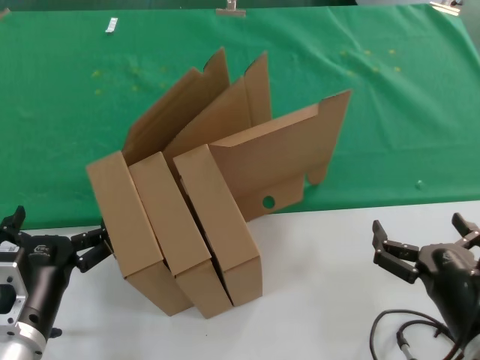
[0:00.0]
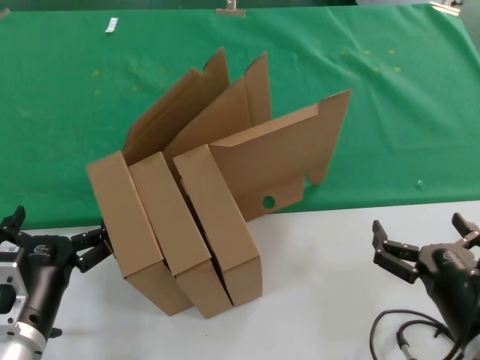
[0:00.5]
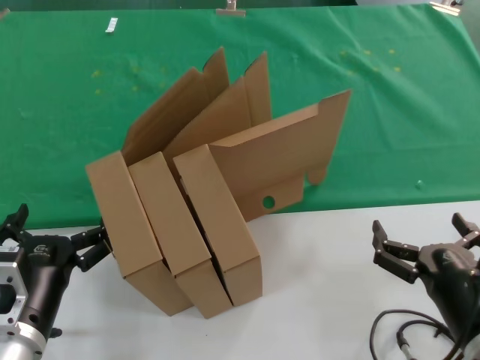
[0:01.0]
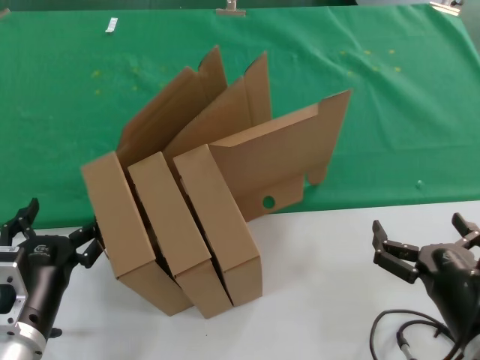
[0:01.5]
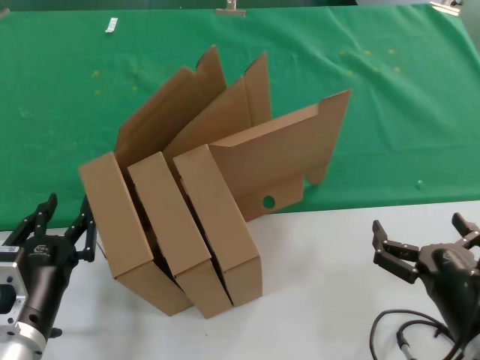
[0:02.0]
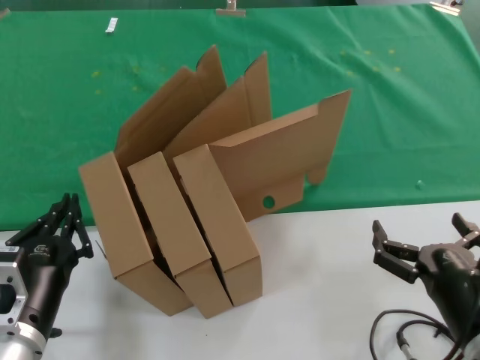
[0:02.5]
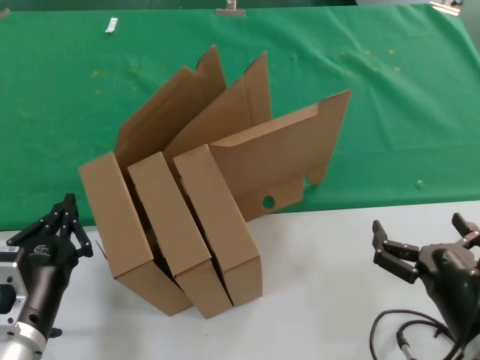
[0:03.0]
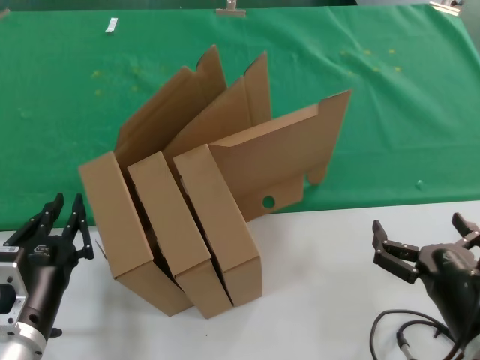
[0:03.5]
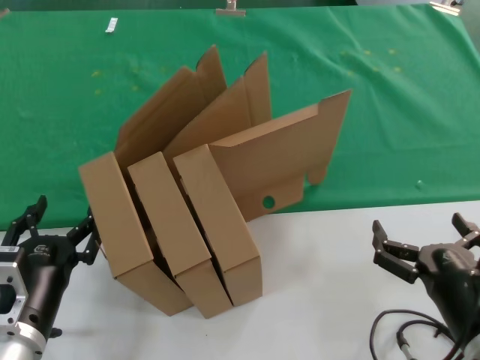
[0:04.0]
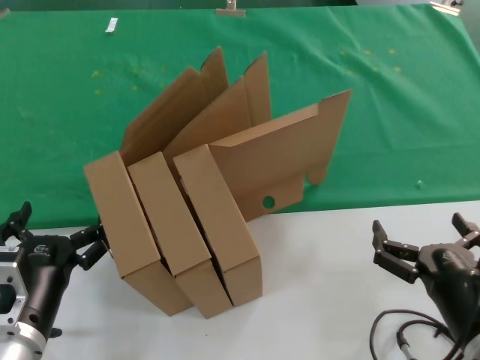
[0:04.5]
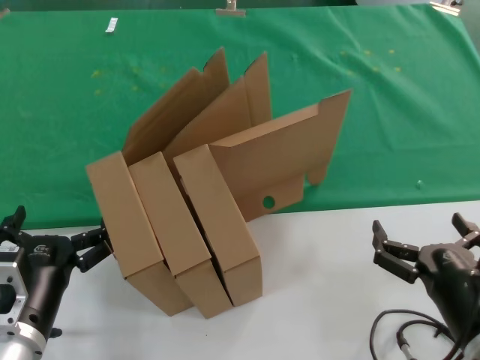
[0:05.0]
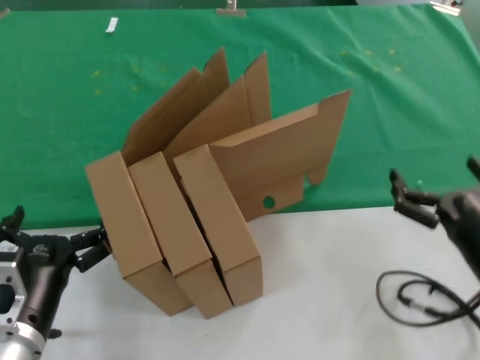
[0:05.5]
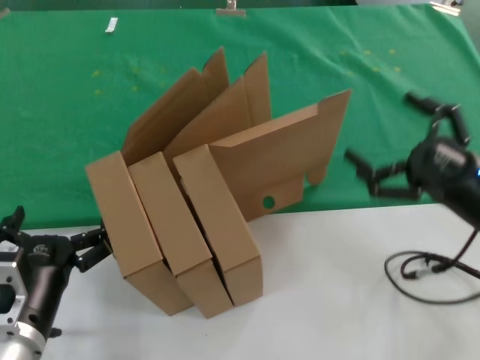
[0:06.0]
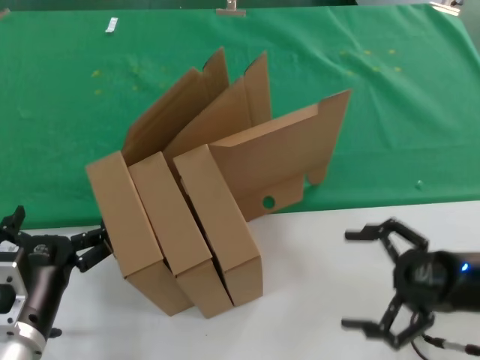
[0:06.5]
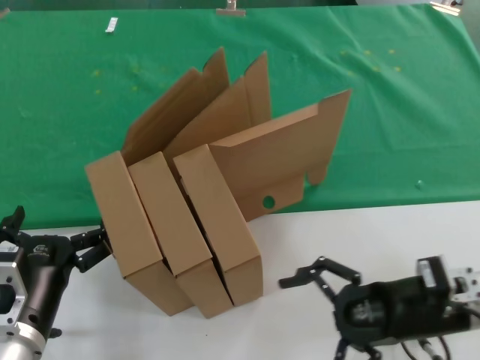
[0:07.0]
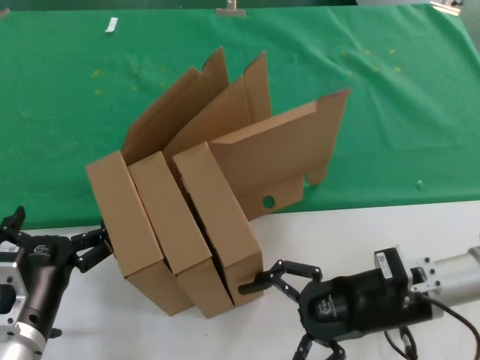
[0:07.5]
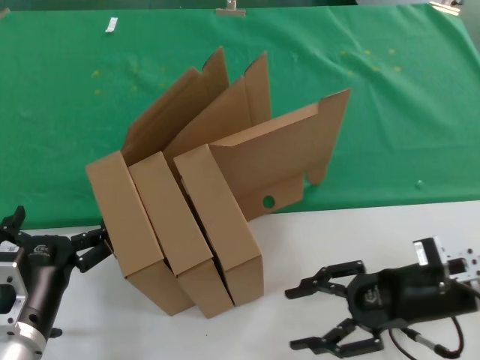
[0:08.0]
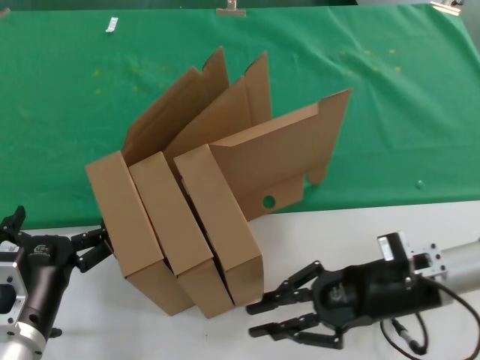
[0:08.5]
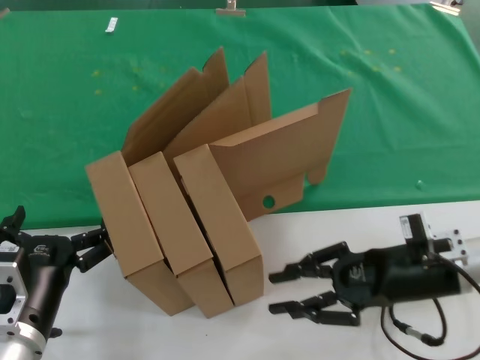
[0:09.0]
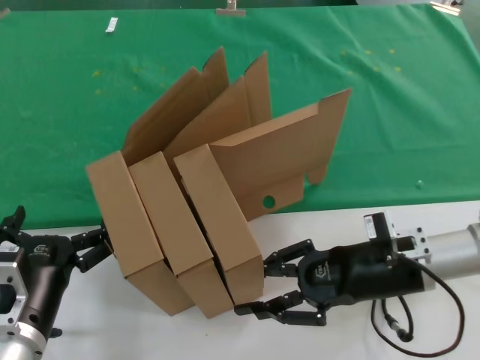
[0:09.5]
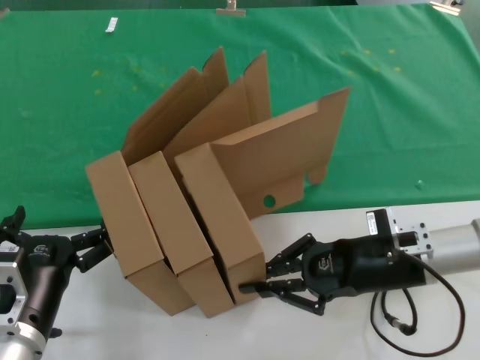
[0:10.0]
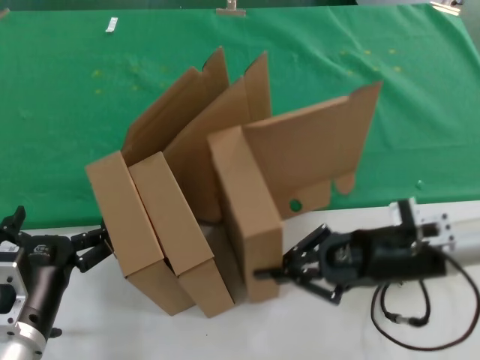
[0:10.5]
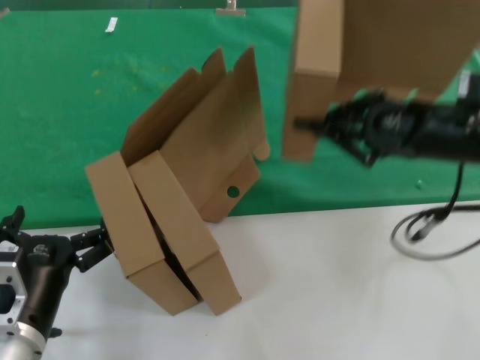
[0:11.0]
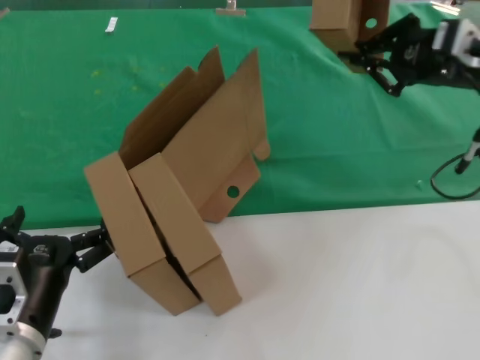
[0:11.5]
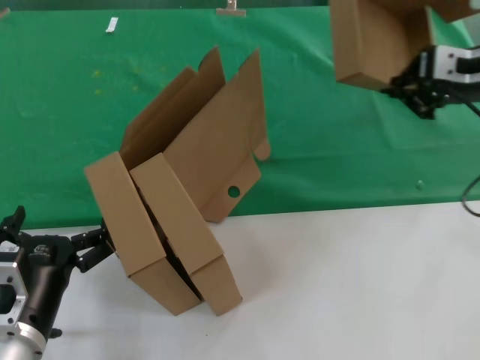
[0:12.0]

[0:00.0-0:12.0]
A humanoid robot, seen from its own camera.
Task of the whole recording: pick up the paper box and put it at the back.
Step, 0:00.0 to 0:10.0: Grasp the paper box.
0:00.0 to 0:04.0: Both hands stay about where they are.
0:04.0 to 0:06.0: The right hand shifts some 15 cm forward, to the right and upward.
0:06.0 to 0:08.0: The right hand reaches about 10 cm to the left, then returns.
0:08.0 to 0:10.0: The right hand goes about 5 cm to the left.
0:10.0 to 0:12.0: The right hand moves upward, roughly 20 cm.

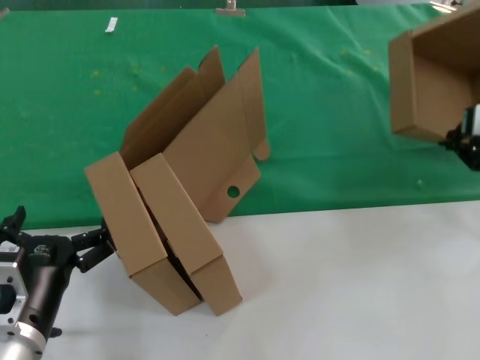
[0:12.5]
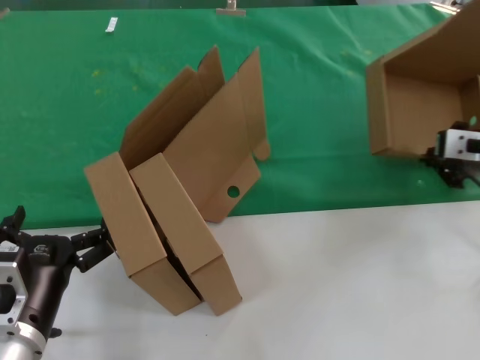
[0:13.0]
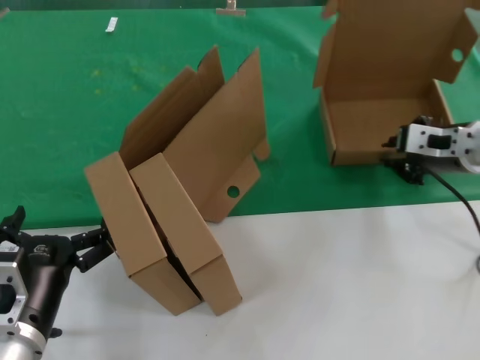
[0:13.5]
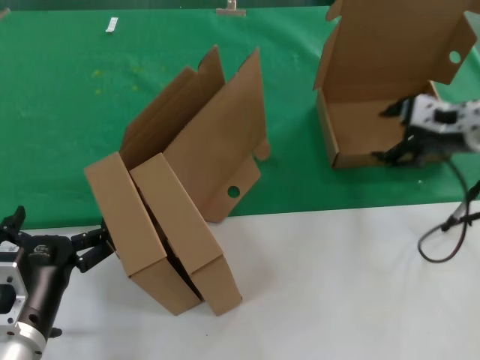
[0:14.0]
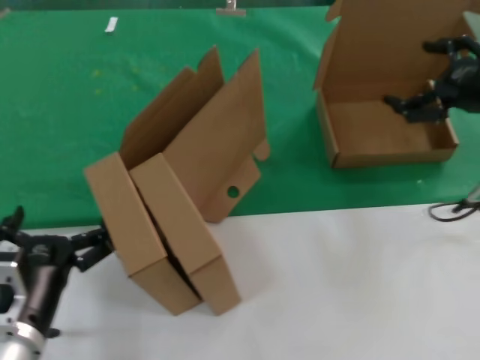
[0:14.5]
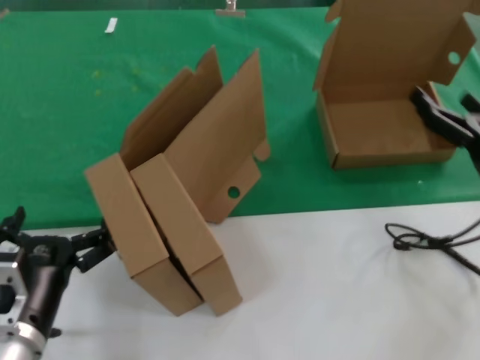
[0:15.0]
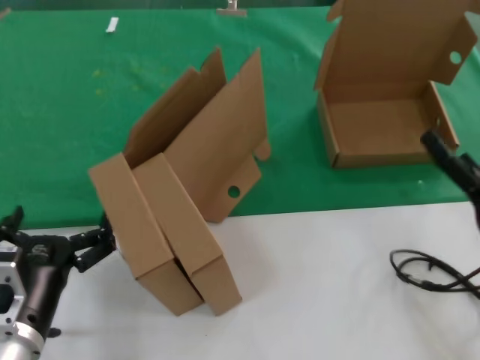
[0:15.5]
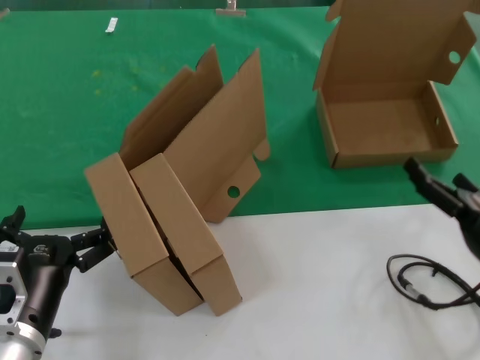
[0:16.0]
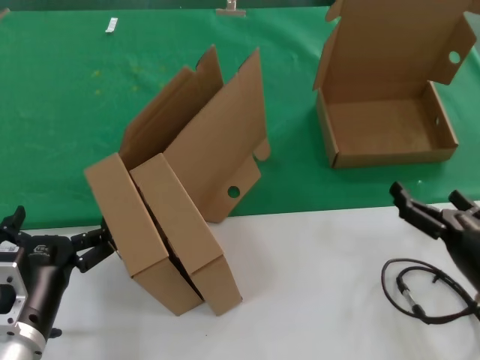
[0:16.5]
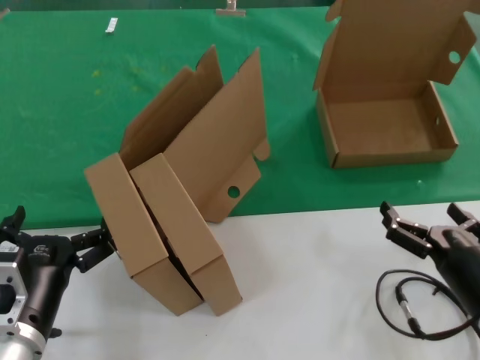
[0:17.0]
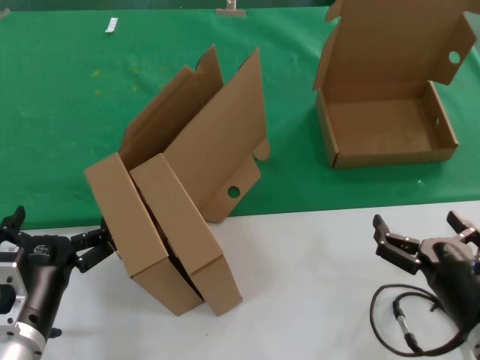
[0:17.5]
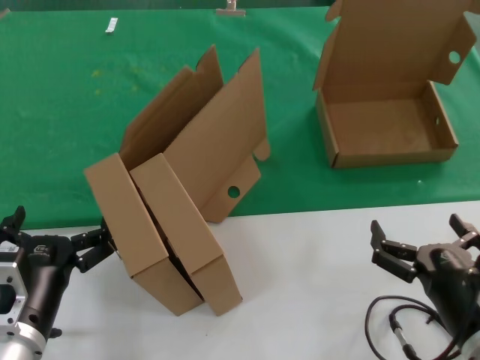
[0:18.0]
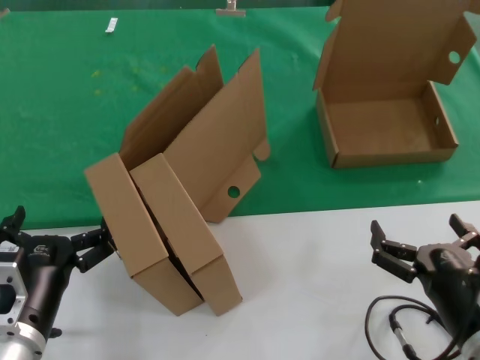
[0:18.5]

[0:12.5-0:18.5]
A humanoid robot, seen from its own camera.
Task of the whole recording: pick up the paper box and put it at the back.
0:14.5 to 0:16.5: The right hand is displaced downward and backward by approximately 25 cm.
0:16.5 to 0:18.5: The right hand goes about 10 cm to the left and backward.
